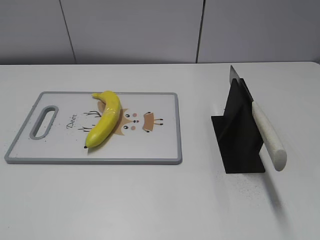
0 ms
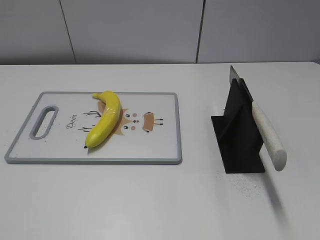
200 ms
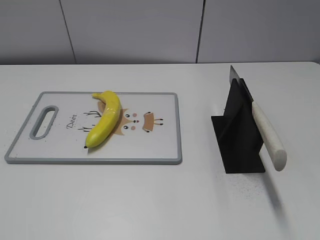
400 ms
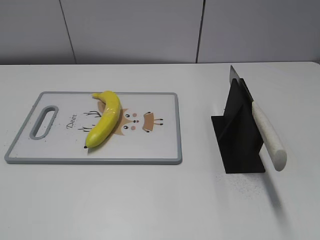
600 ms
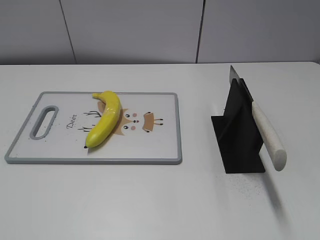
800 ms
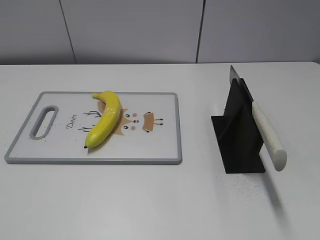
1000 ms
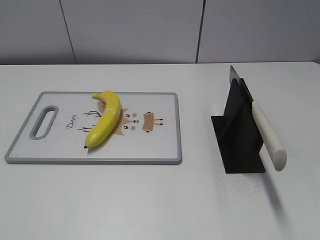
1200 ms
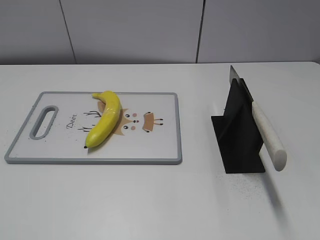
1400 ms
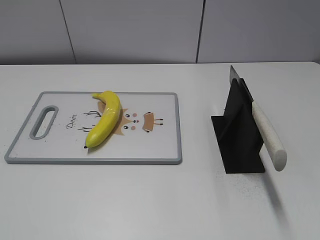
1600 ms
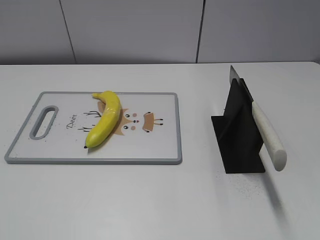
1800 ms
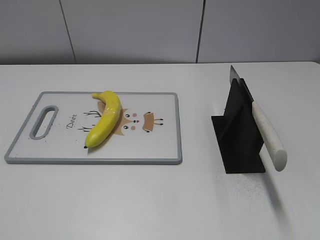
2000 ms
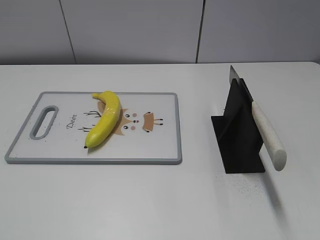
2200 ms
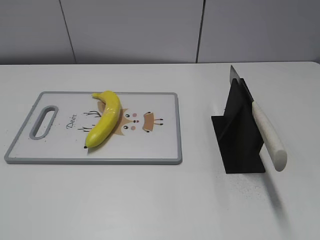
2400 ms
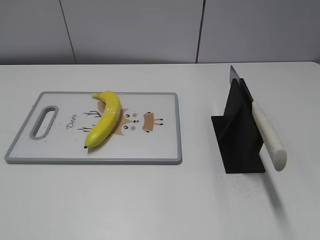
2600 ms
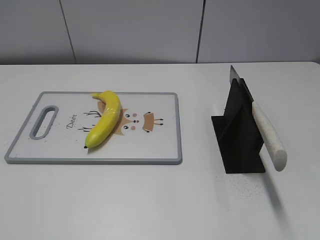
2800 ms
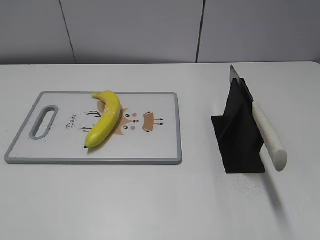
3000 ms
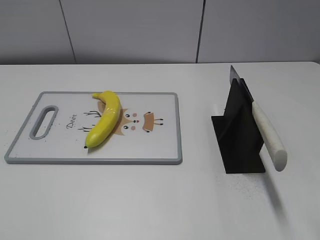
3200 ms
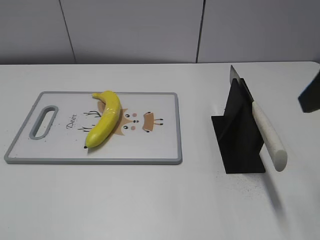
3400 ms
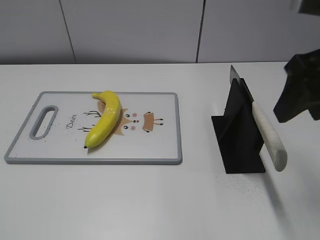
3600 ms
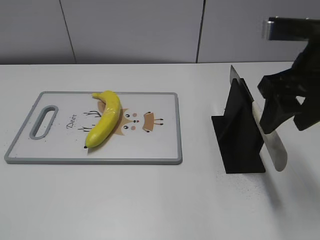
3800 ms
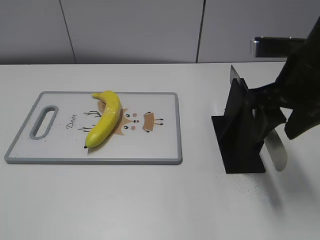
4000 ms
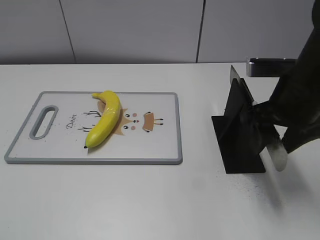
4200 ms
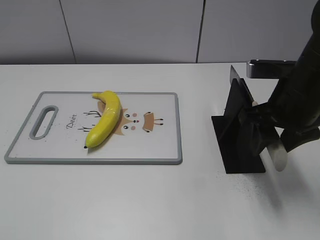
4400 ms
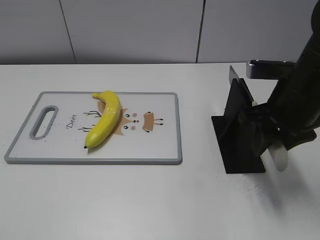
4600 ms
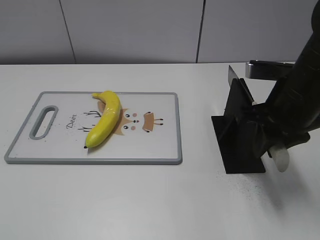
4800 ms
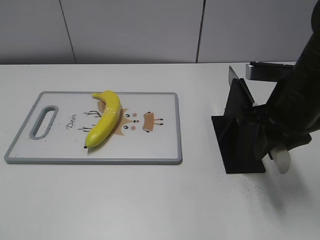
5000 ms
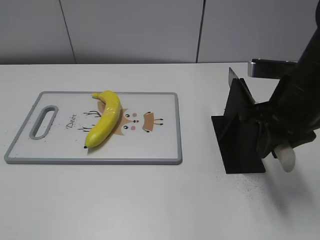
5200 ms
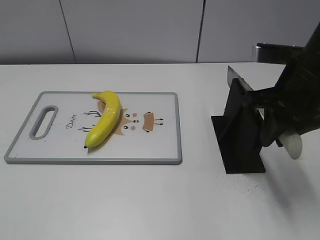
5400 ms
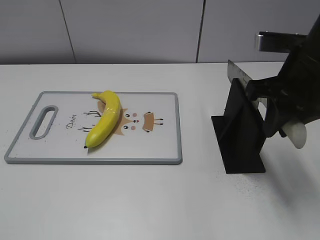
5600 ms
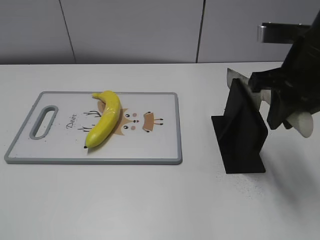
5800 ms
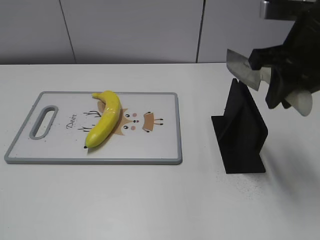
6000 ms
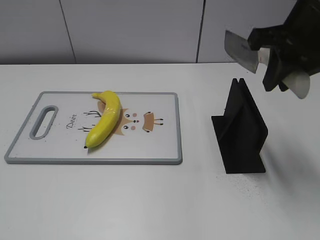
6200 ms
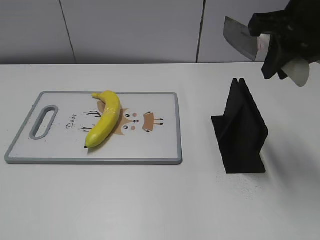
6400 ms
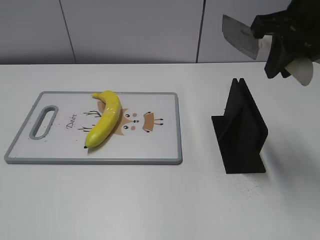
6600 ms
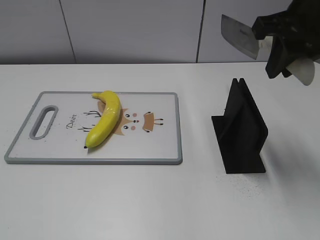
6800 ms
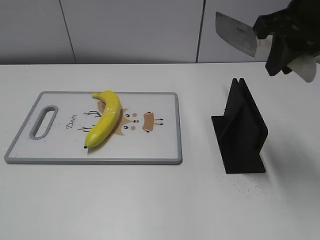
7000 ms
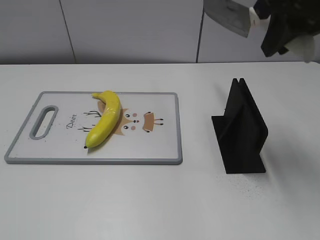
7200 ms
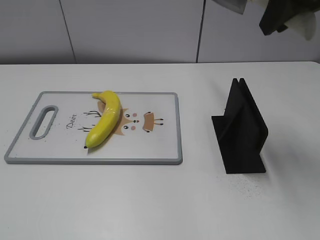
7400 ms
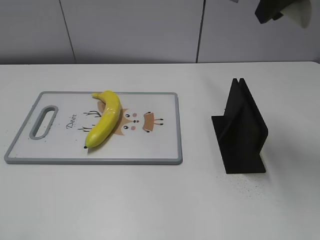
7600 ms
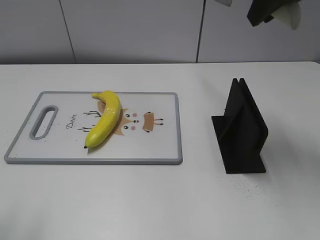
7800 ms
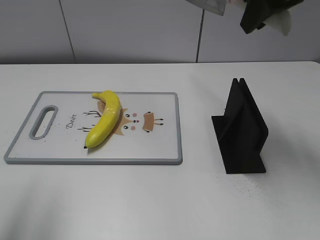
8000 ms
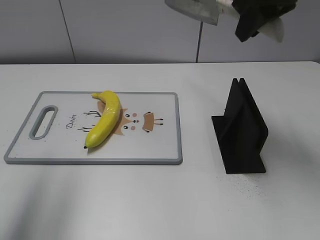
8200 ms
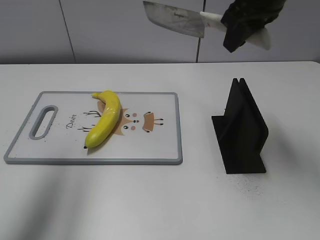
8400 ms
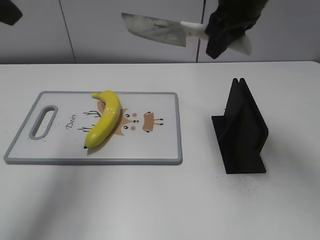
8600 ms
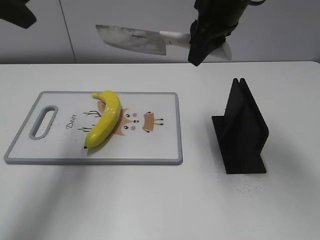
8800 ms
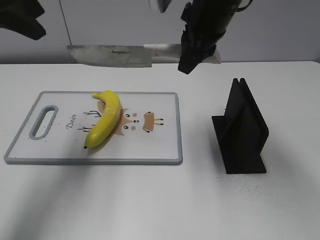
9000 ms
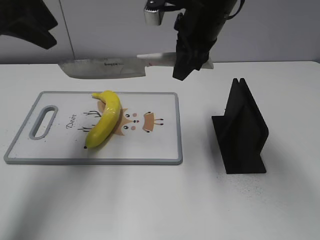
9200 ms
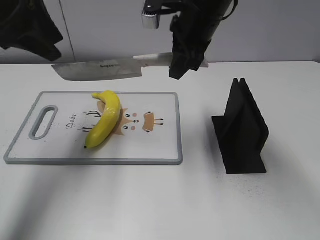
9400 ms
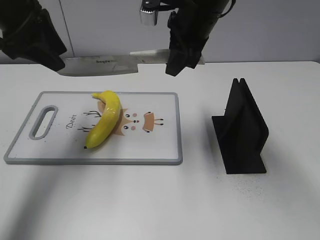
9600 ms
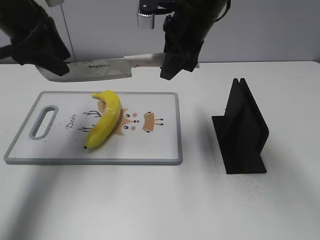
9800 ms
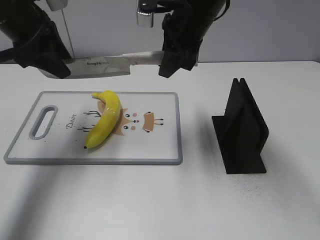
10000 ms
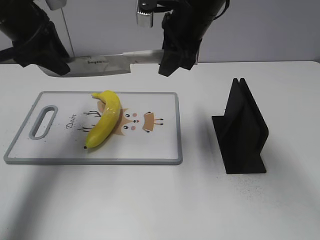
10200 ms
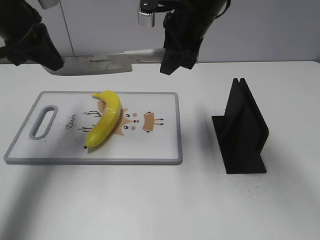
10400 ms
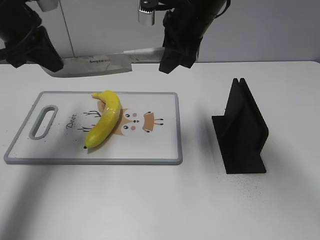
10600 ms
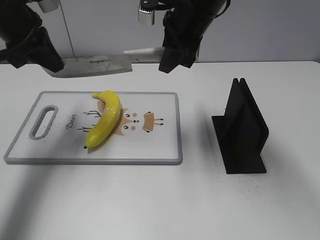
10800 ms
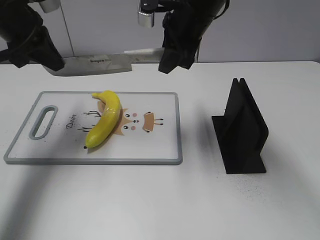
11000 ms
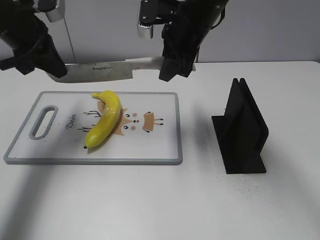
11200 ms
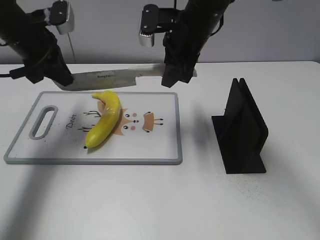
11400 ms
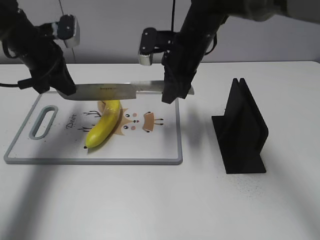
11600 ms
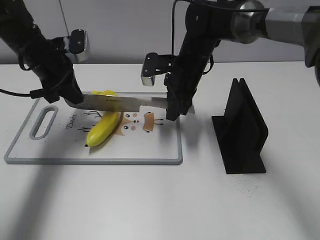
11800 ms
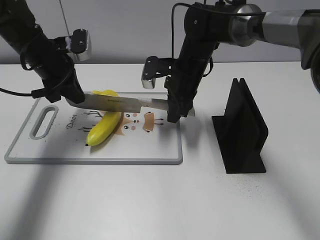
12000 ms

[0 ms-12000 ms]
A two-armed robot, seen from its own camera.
Task of the whole recording: cut plastic banana.
Step, 0 ms to 6000 ms: Grab the knife handle with your right hand.
3000 ms to 4400 ms: The right gripper moves forward, downward and to the left, about 20 cm.
4400 ms to 6000 ms: The right gripper is displaced upward by about 10 cm, and closes.
6000 ms to 7600 ms: The right gripper heads upward, covering some 10 cm.
7600 ms to 9000 ms: The left gripper goes about 30 cm forward; the right gripper moves downward, to the left and forward, approximately 15 cm.
9000 ms to 10400 ms: The left gripper travels downward and forward by approximately 10 cm, and closes up.
10400 ms to 12000 ms: The grippers both shift downward by roughly 10 cm.

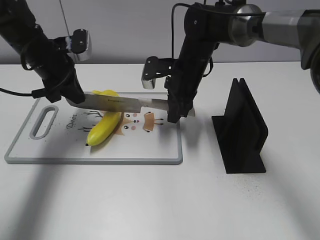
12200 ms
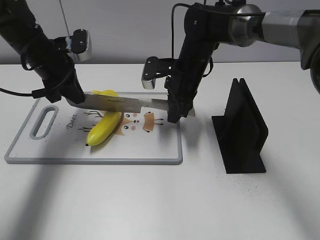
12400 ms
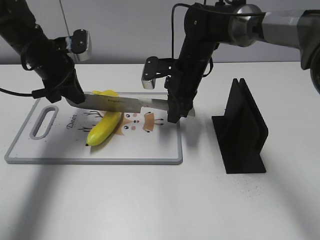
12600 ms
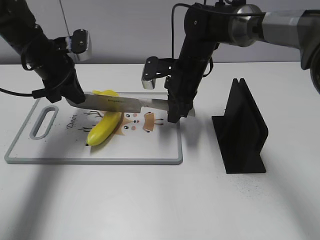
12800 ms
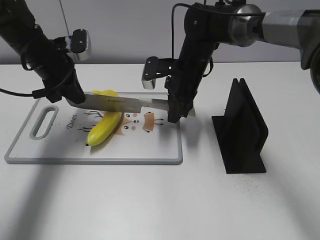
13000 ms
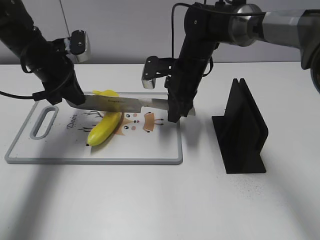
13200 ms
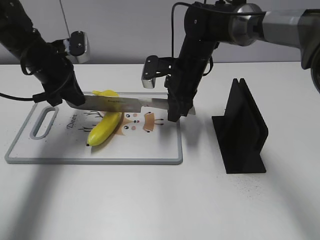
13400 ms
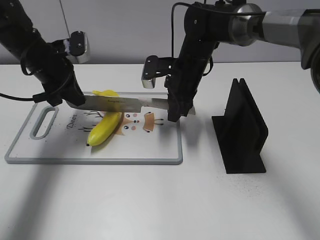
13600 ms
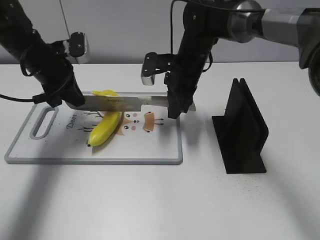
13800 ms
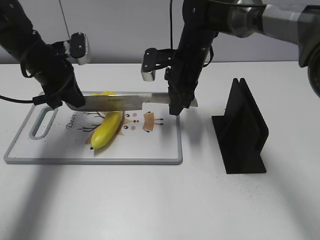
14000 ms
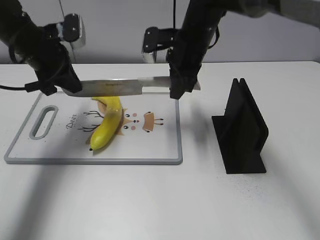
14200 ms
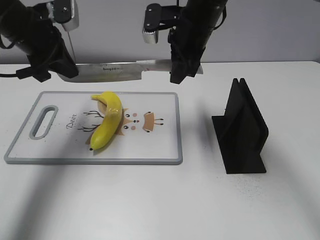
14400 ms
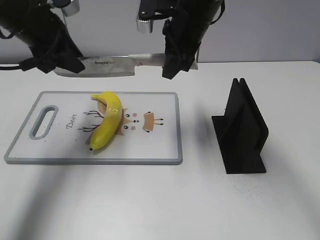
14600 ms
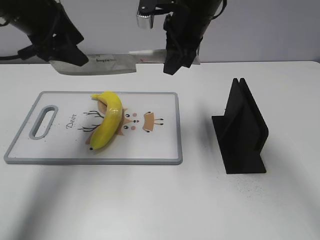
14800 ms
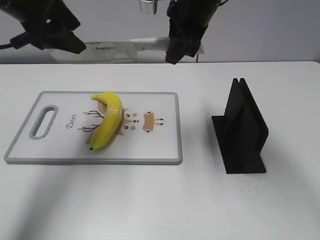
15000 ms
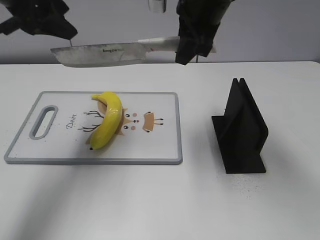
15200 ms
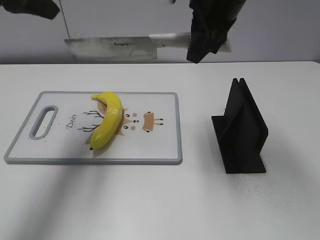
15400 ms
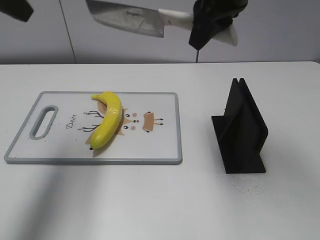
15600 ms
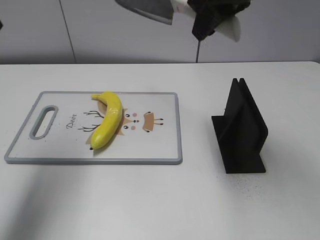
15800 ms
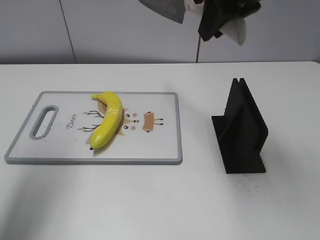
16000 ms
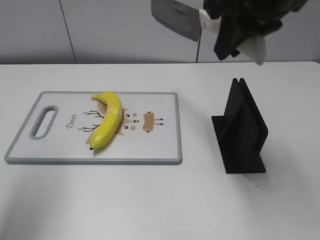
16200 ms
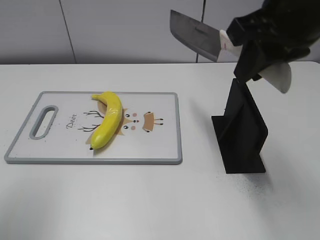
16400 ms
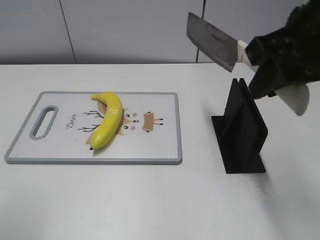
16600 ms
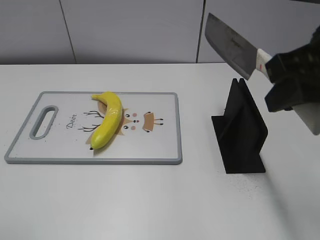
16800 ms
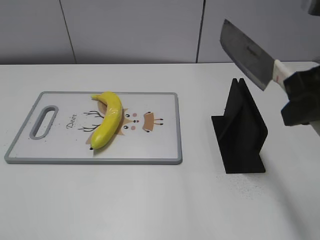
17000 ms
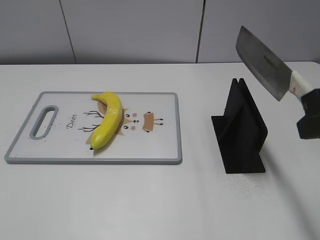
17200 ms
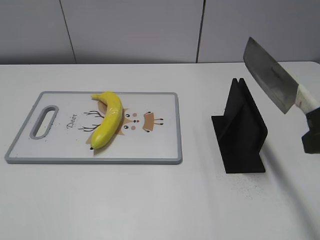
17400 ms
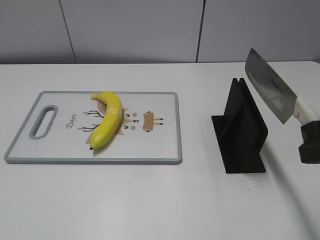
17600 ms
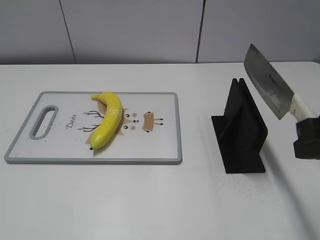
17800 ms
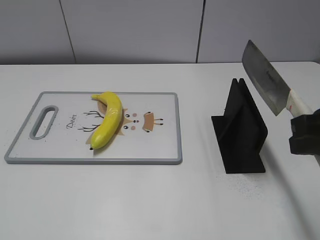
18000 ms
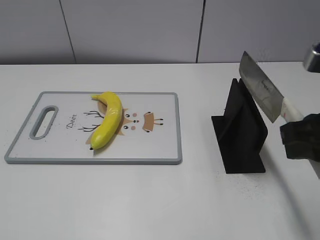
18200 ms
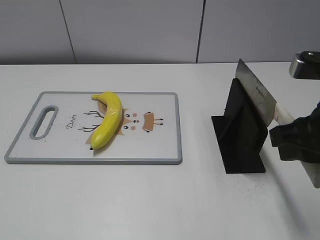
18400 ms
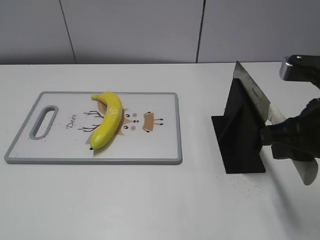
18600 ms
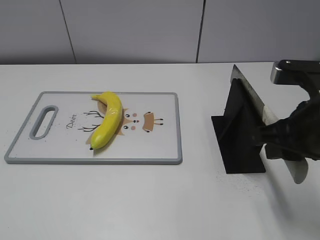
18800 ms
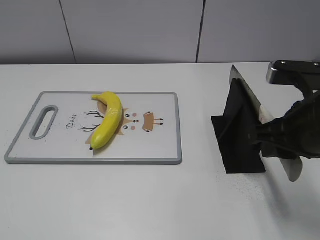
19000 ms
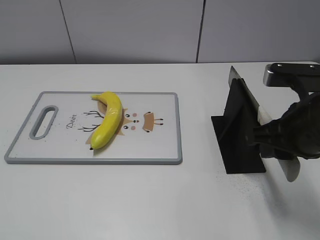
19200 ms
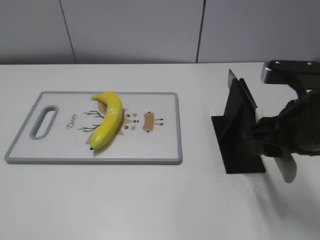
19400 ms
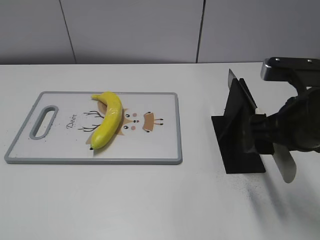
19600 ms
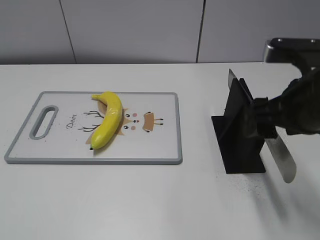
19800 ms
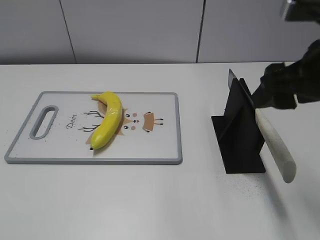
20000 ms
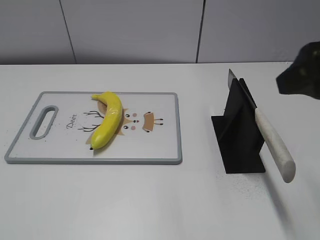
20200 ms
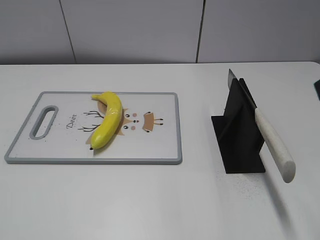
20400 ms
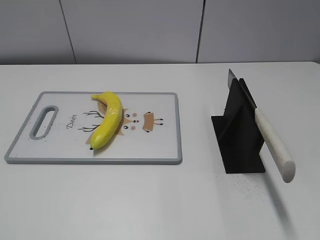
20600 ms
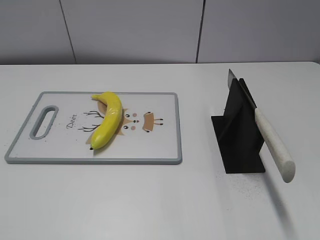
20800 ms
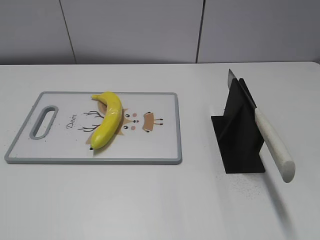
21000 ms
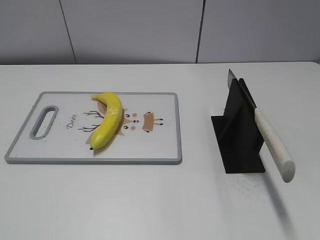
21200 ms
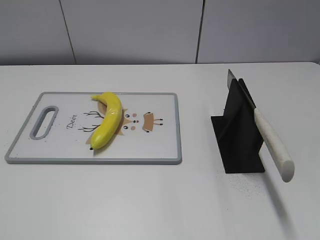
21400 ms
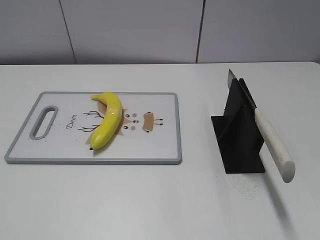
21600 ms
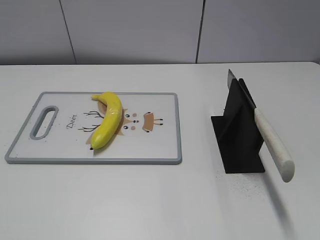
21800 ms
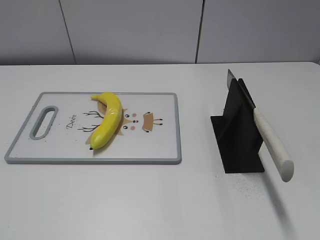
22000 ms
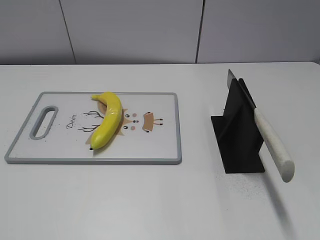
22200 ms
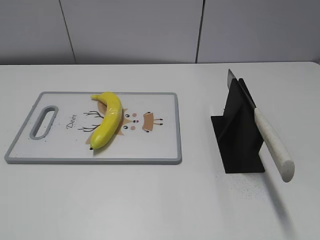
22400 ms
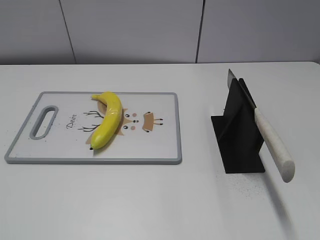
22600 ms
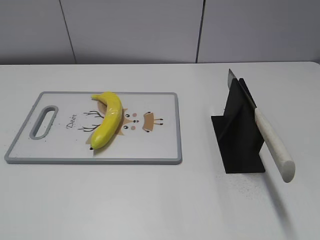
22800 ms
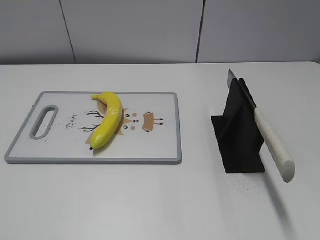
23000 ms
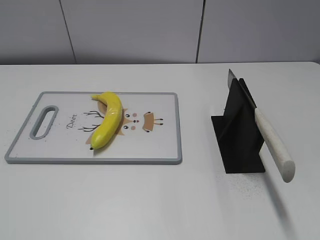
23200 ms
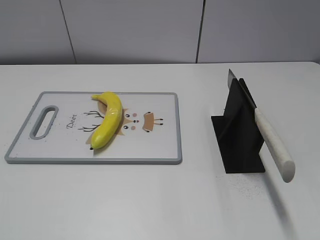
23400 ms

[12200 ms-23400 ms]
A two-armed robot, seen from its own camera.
Task of the whole recording: cut plastic banana.
Step, 13000 ms to 15400 ms: Cut the banana with your right hand.
Step, 15800 ms to 18200 ms: Lift the knife with your right hand.
Step, 18400 ms to 23400 ms: Place the knife on the storage rack with your right hand.
12200 ms to 13800 ms: The two grippers keep their place.
13800 ms to 15400 ms: Both grippers move upward, about 20 cm. The left gripper opens its fingers.
15400 ms to 17000 ms: The right gripper moves backward and to the right, about 20 cm. Meanwhile the left gripper heads backward, covering approximately 30 cm.
17000 ms to 18600 ms: The right gripper heads downward, covering roughly 10 cm.
18600 ms to 20200 ms: The right gripper travels upward by about 10 cm, and opens up.
20200 ms to 21800 ms: The right gripper is displaced backward and to the right by about 20 cm.
